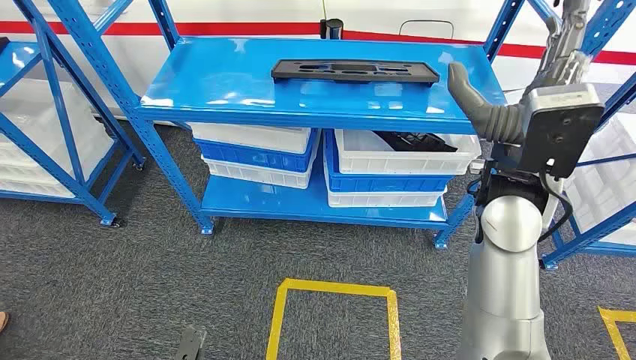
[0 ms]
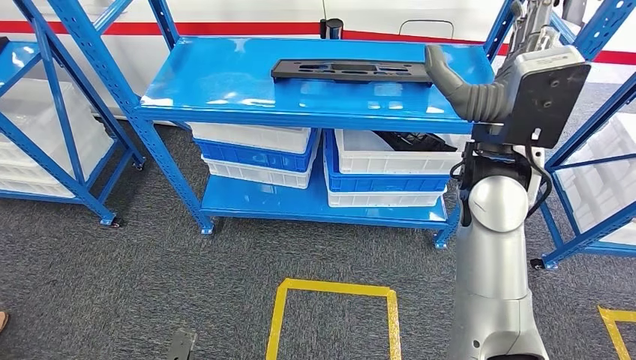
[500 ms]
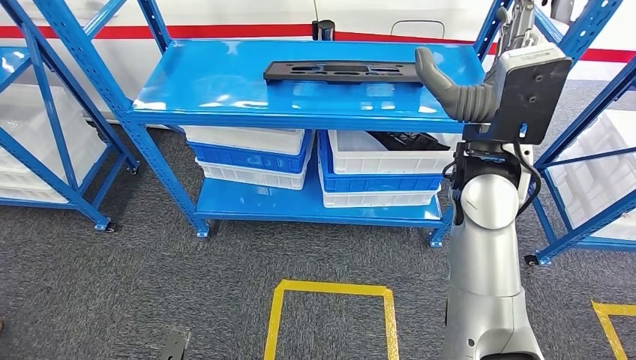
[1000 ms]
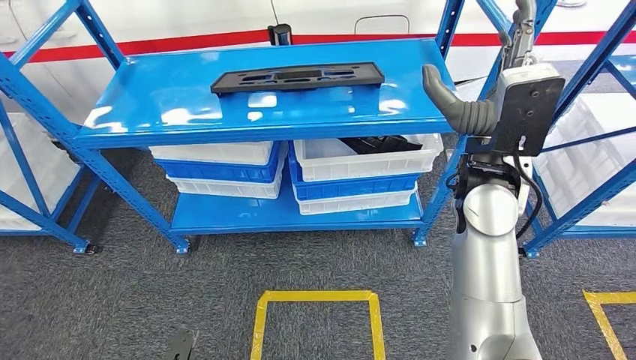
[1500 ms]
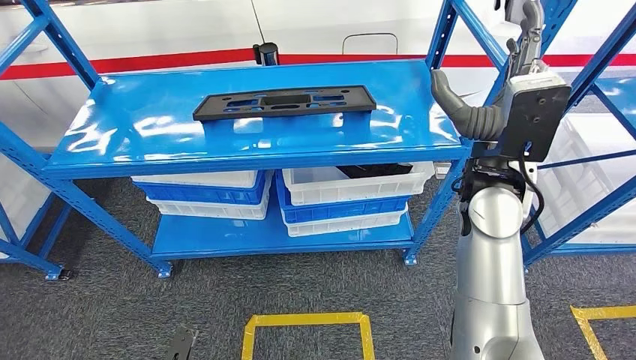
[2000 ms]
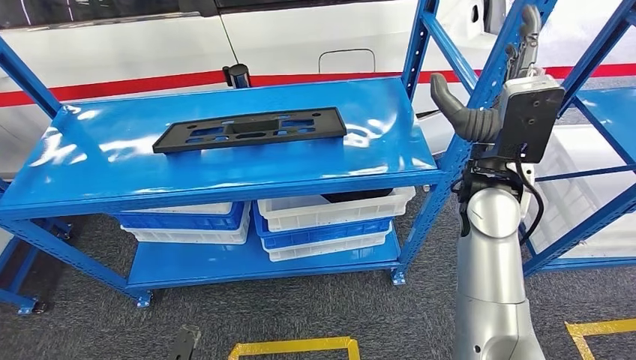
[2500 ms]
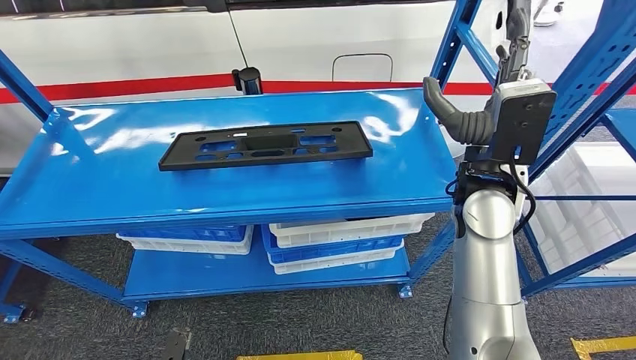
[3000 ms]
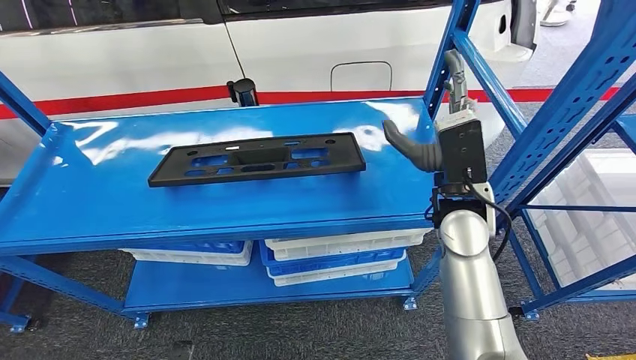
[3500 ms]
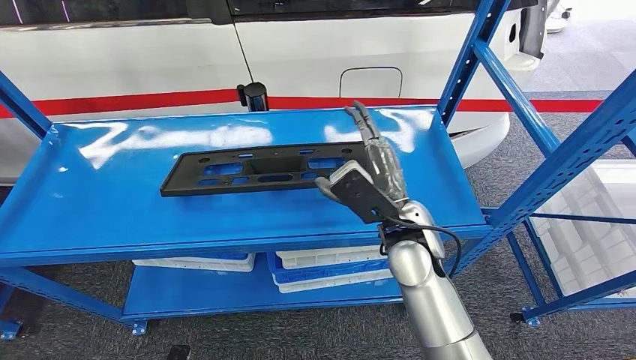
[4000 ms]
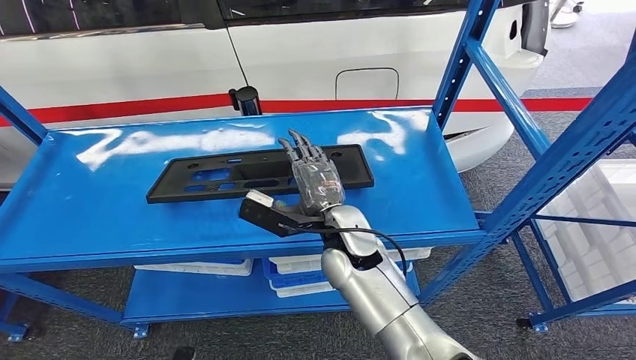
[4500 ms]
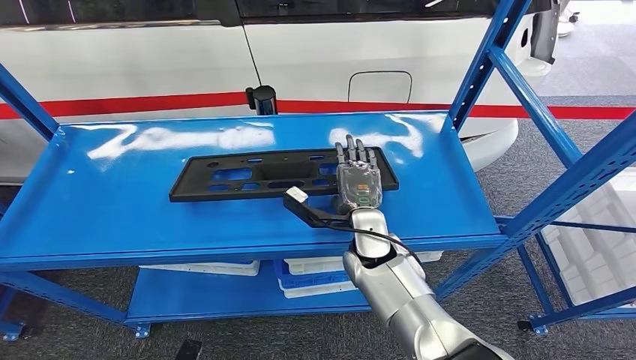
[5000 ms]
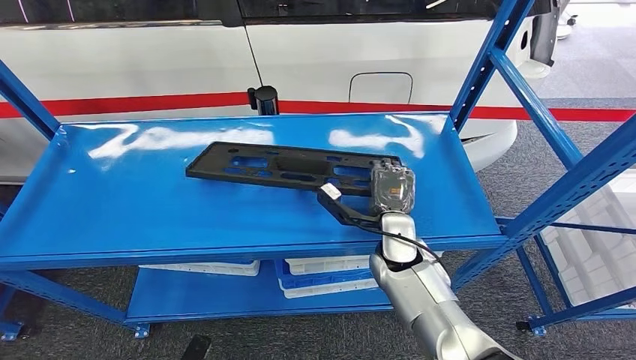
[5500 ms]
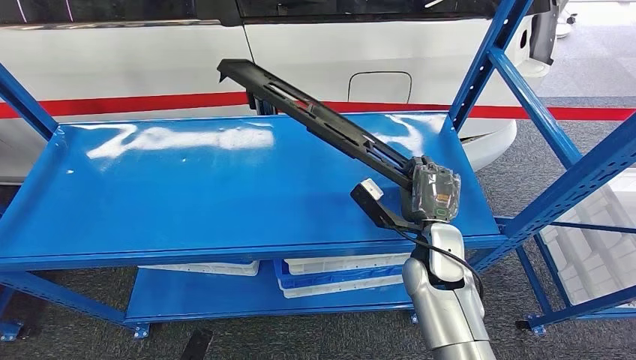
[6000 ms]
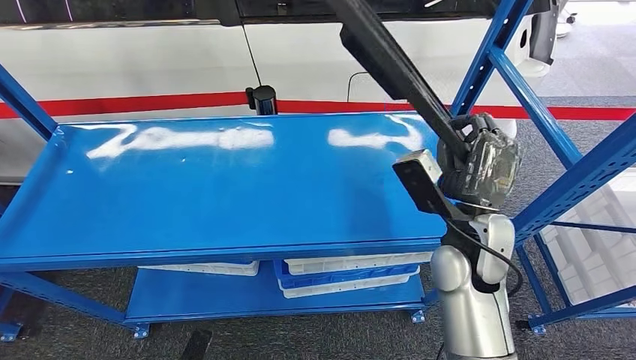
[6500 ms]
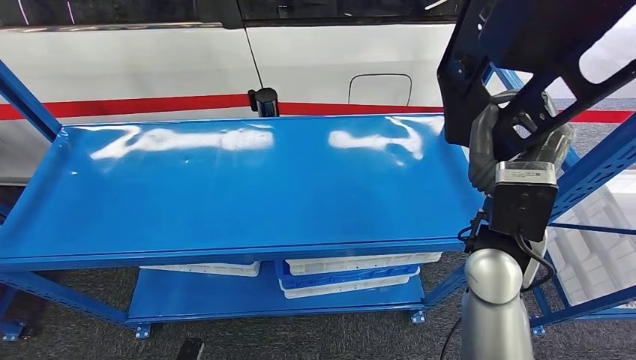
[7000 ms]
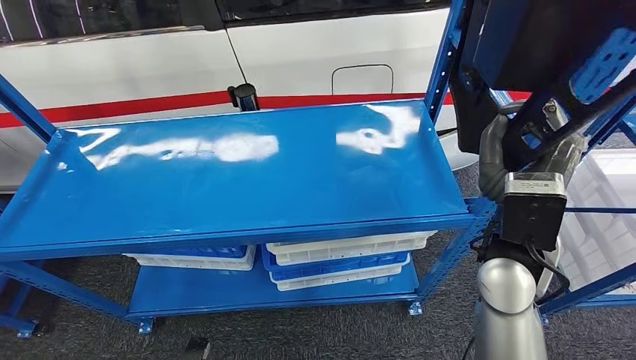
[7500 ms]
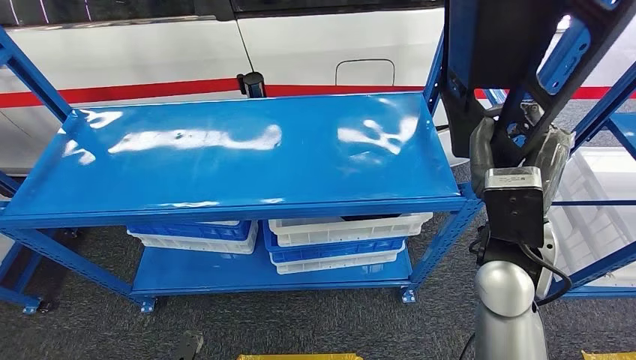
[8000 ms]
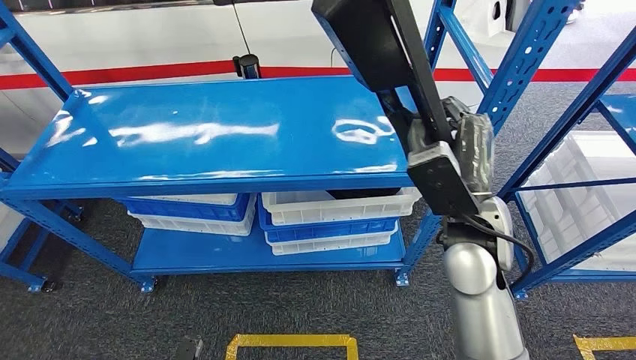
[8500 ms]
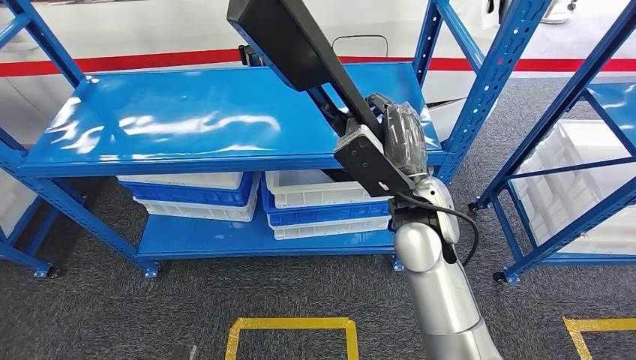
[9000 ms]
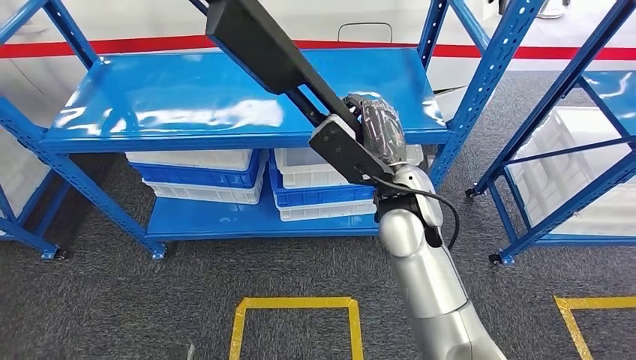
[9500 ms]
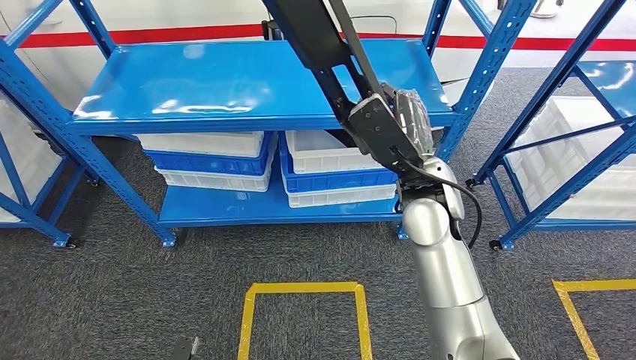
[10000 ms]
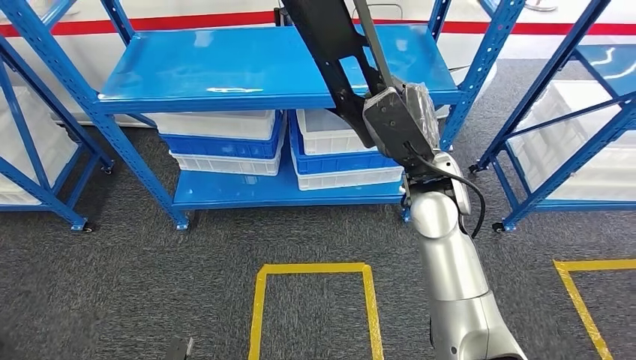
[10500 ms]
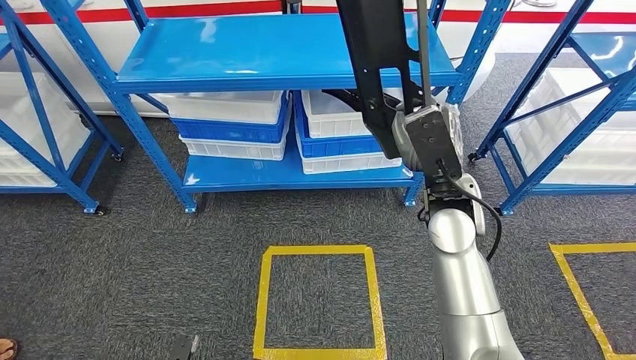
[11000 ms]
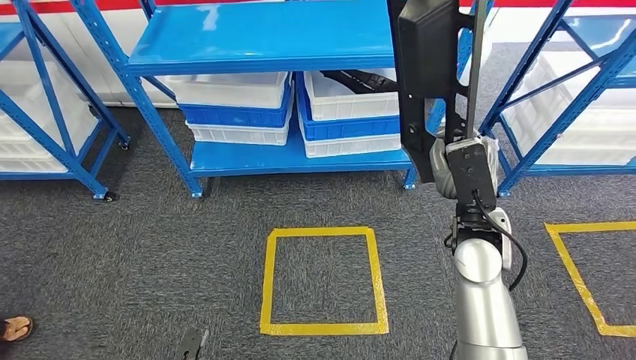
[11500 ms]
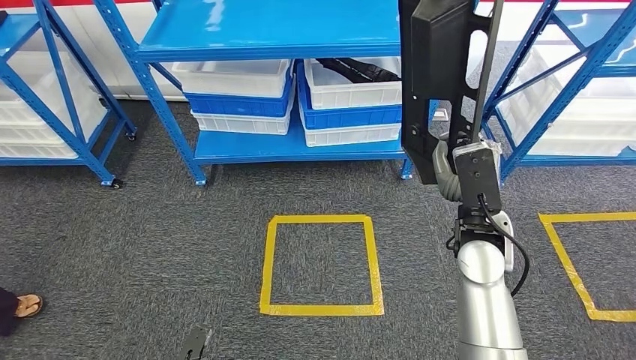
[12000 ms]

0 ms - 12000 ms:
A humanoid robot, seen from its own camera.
Step, 0 ms - 11500 ms: Pick up the large parts from the shelf.

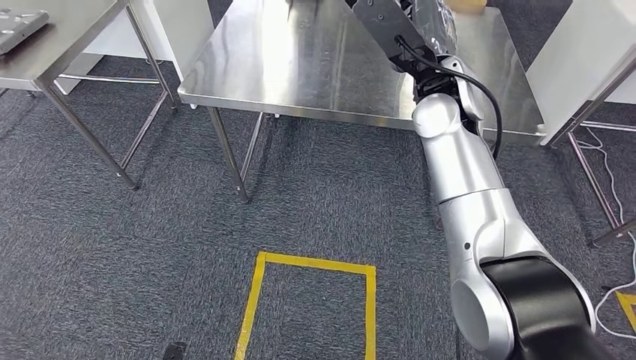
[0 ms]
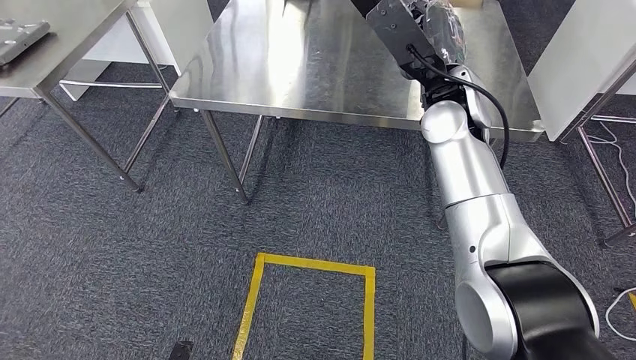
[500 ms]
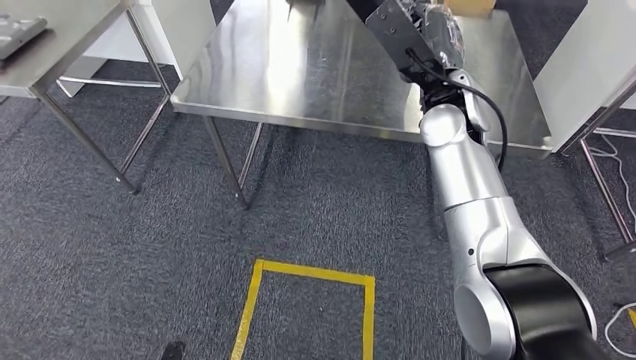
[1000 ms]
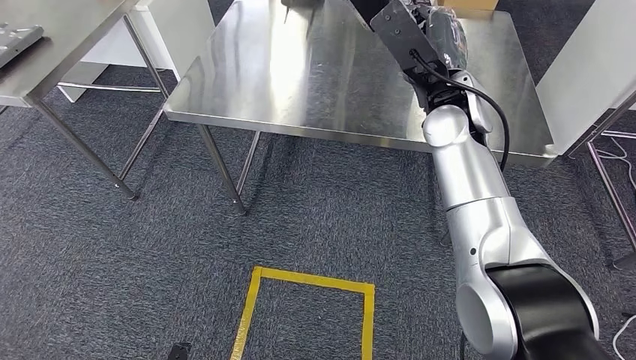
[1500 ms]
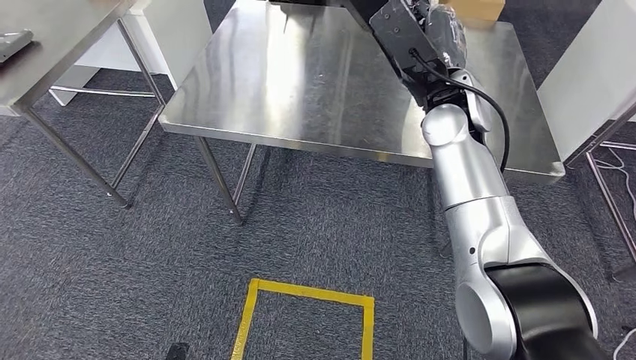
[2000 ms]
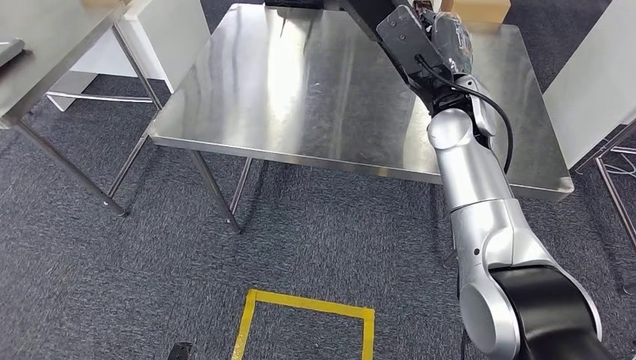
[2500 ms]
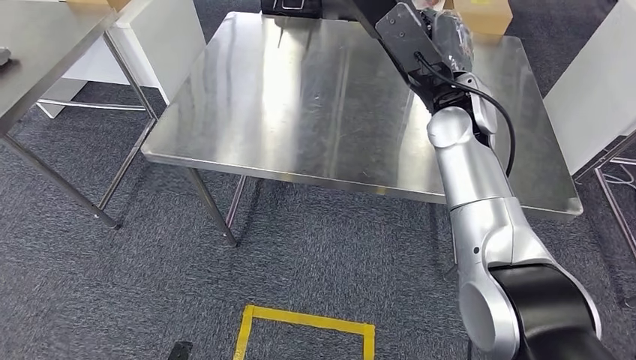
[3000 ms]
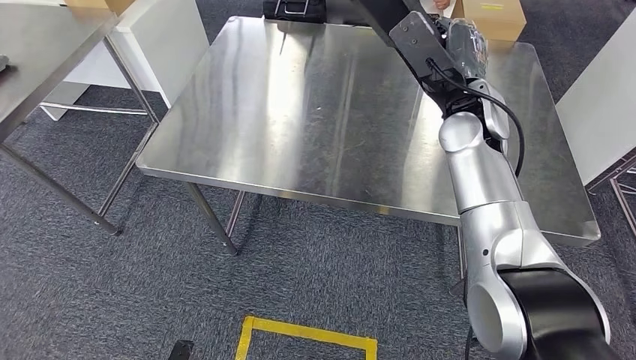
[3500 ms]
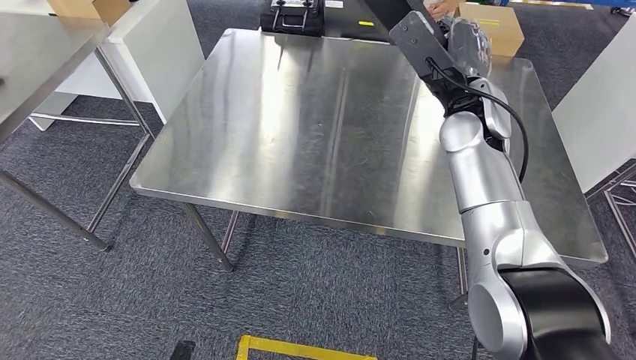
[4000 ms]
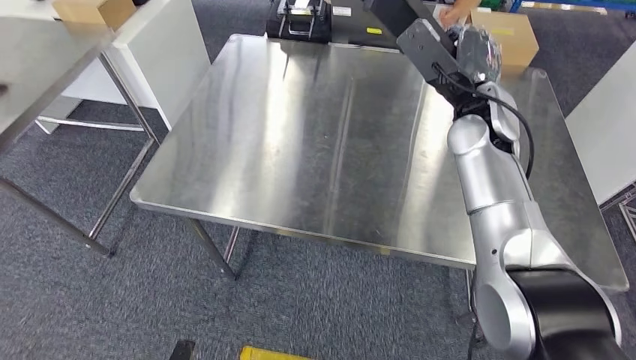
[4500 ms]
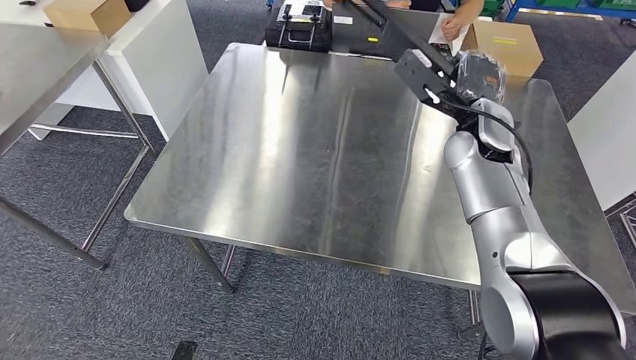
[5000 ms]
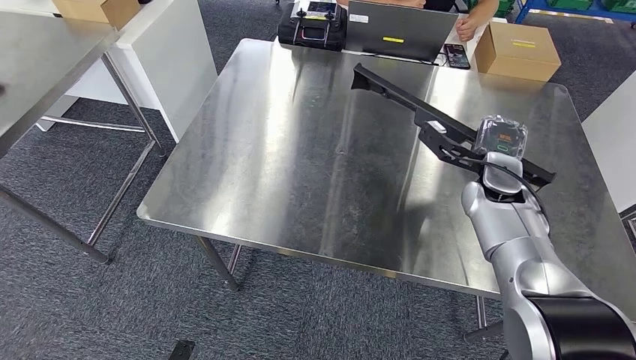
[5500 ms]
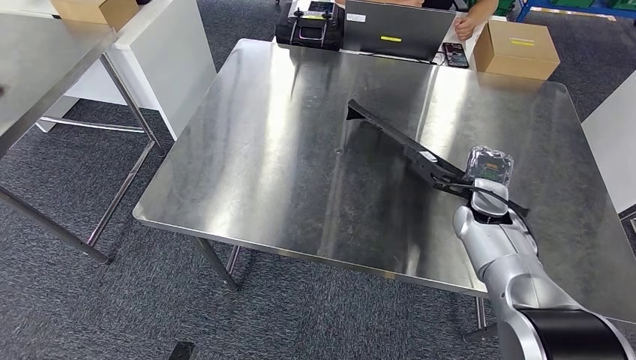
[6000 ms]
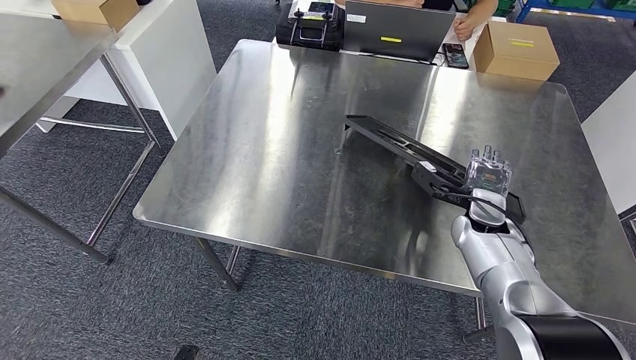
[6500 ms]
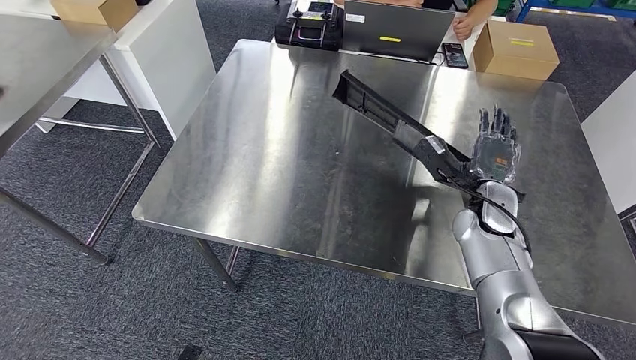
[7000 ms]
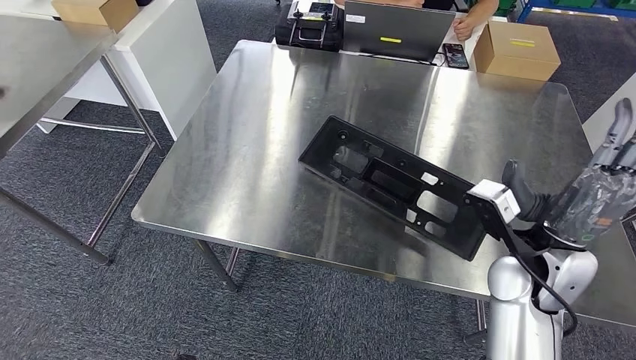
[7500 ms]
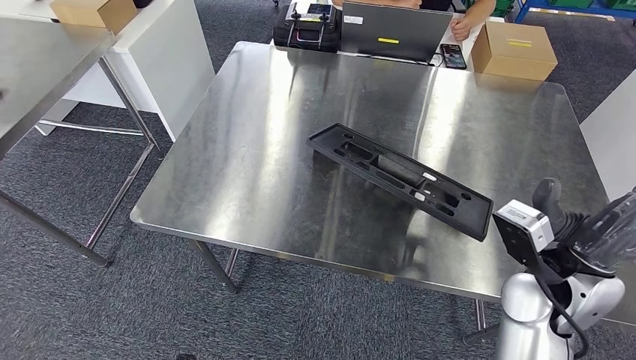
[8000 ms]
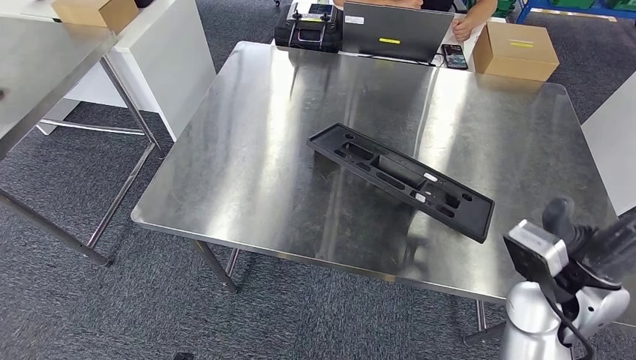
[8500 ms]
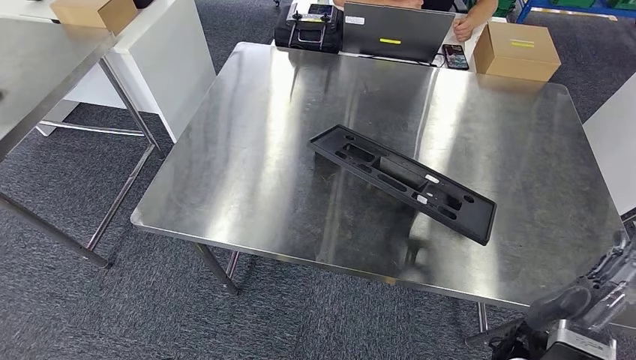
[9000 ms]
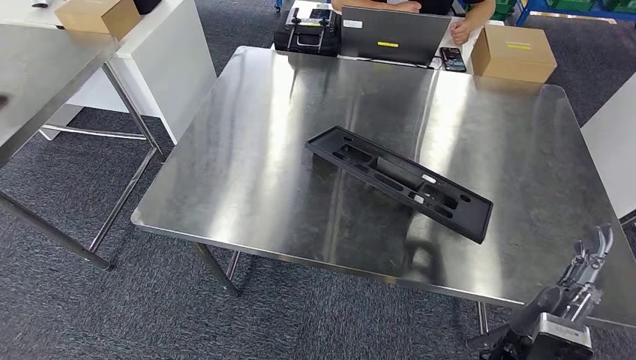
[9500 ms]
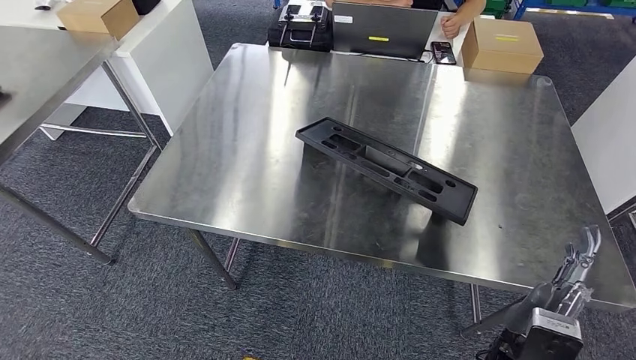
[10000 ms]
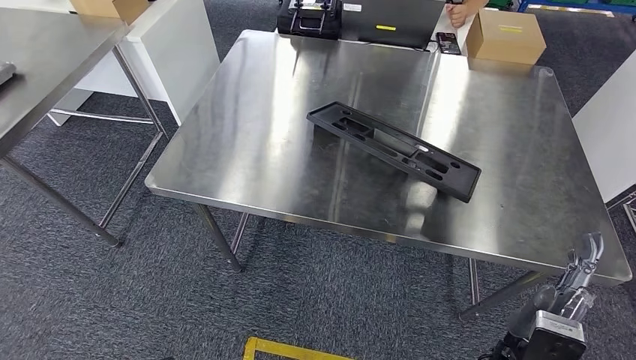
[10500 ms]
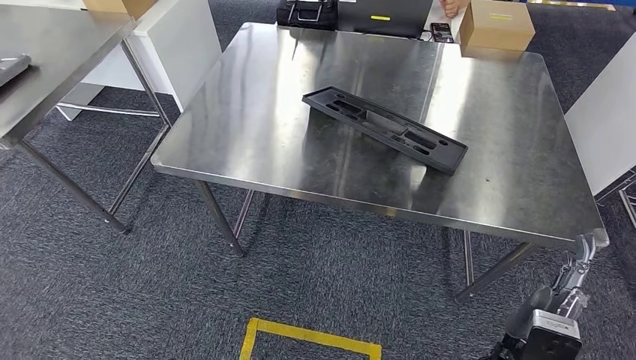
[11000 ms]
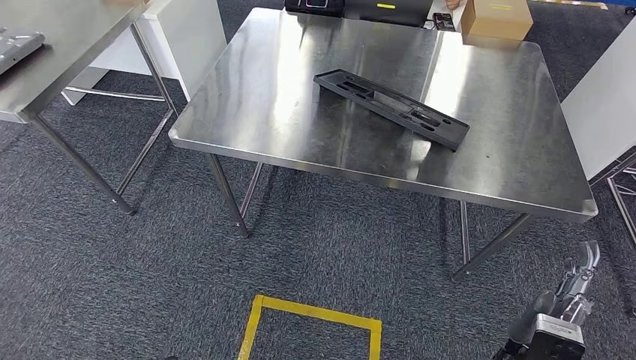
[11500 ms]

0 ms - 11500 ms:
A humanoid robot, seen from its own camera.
6000 ms - 7500 ms: The right hand goes some 15 cm backward, upward and to the left.
